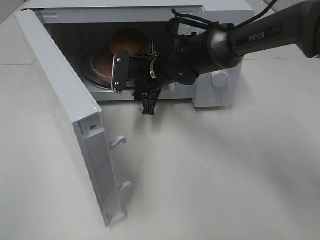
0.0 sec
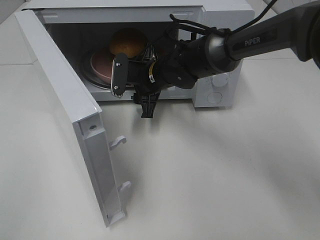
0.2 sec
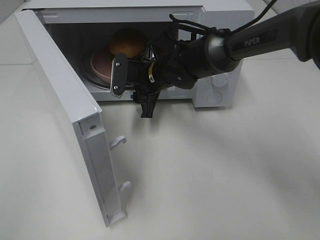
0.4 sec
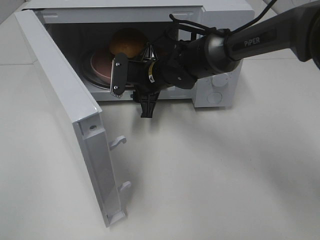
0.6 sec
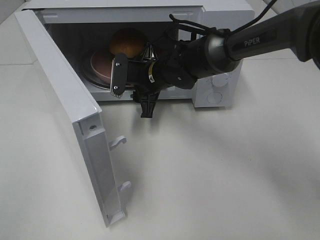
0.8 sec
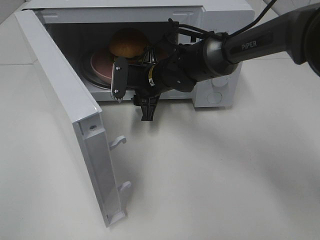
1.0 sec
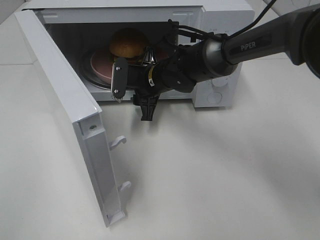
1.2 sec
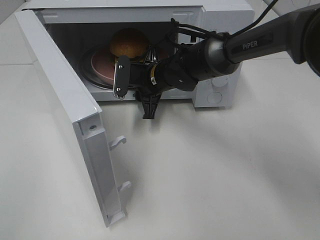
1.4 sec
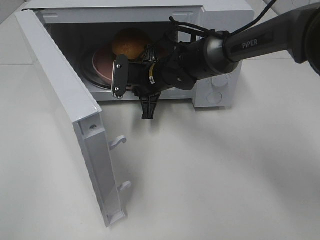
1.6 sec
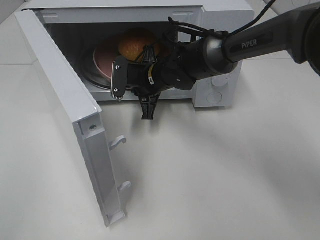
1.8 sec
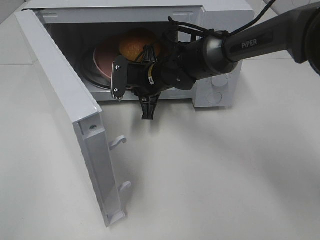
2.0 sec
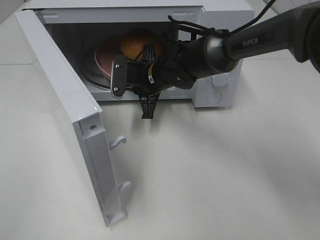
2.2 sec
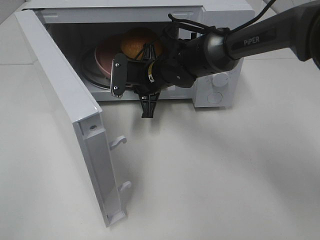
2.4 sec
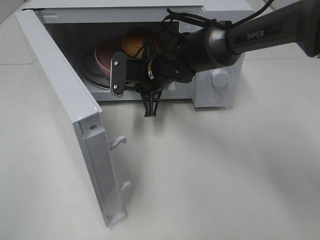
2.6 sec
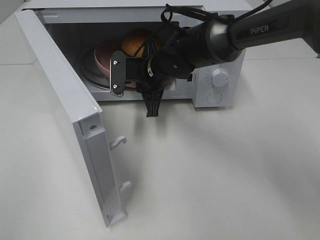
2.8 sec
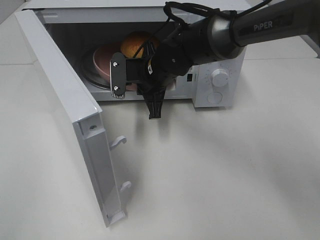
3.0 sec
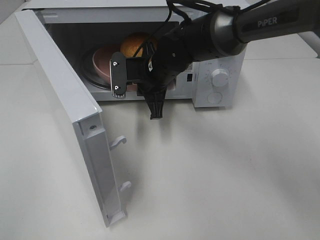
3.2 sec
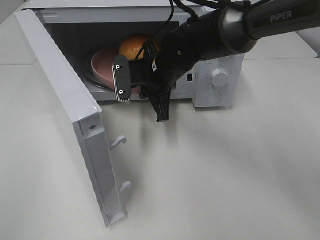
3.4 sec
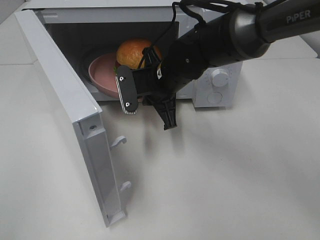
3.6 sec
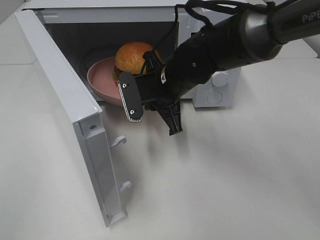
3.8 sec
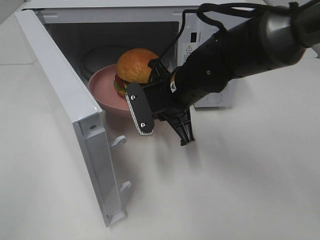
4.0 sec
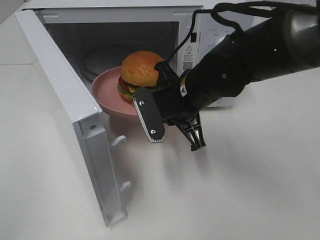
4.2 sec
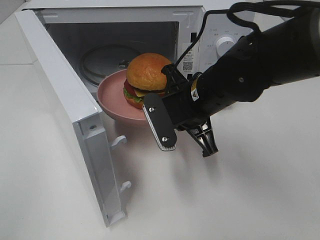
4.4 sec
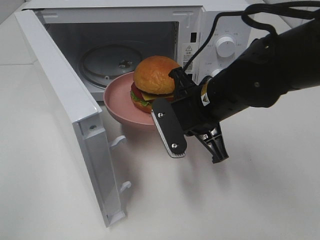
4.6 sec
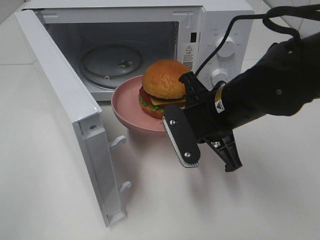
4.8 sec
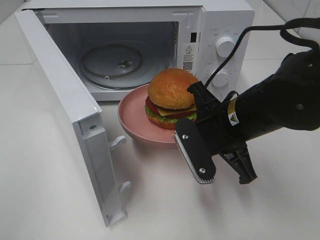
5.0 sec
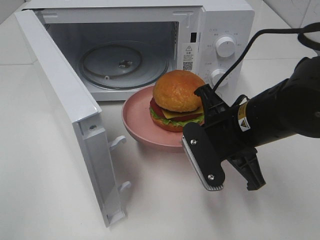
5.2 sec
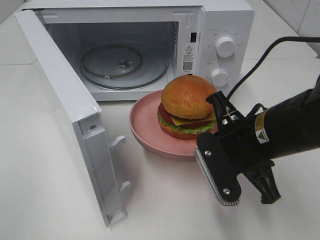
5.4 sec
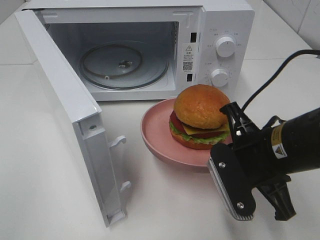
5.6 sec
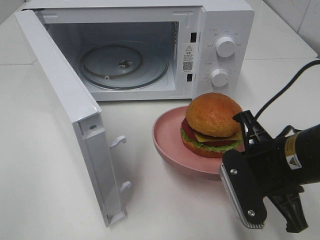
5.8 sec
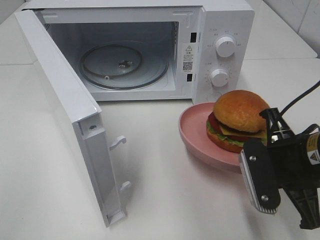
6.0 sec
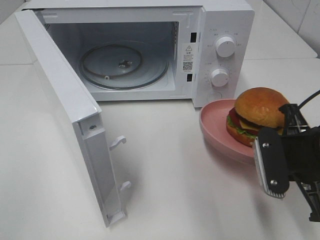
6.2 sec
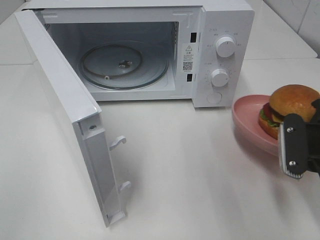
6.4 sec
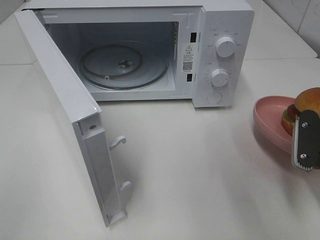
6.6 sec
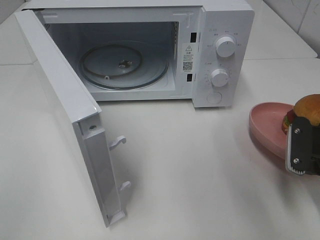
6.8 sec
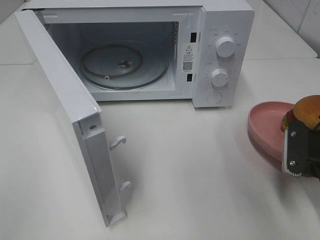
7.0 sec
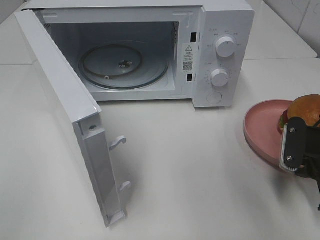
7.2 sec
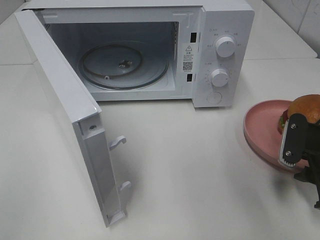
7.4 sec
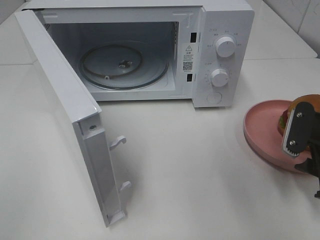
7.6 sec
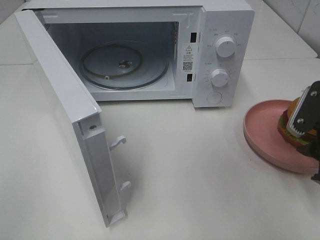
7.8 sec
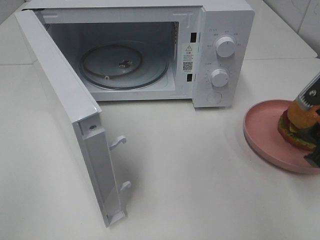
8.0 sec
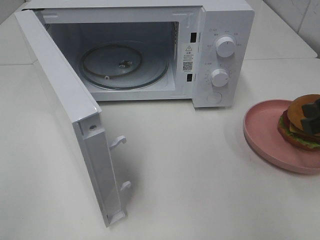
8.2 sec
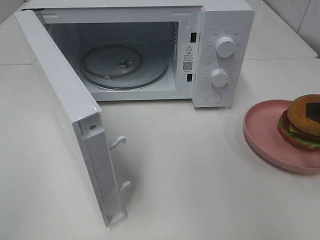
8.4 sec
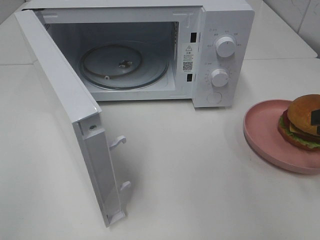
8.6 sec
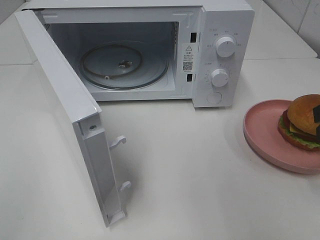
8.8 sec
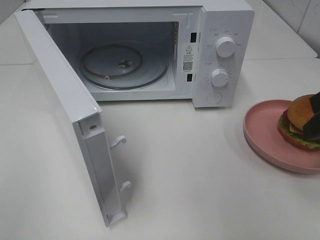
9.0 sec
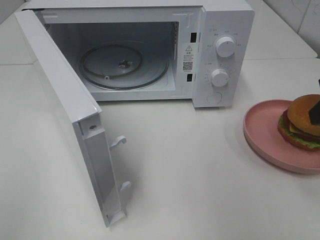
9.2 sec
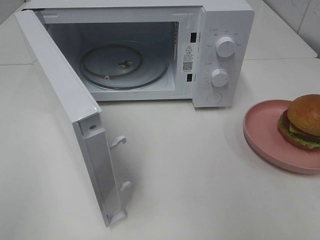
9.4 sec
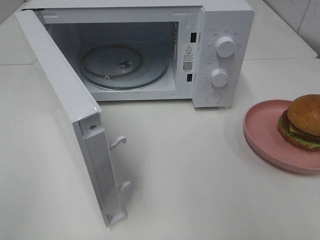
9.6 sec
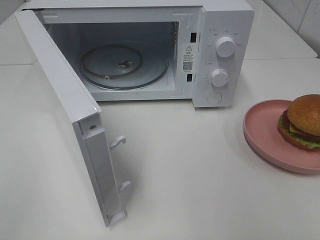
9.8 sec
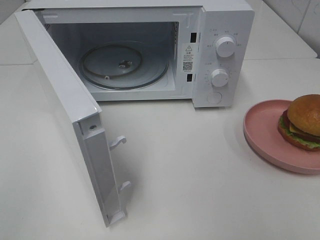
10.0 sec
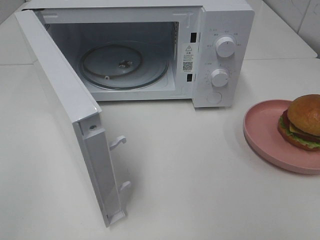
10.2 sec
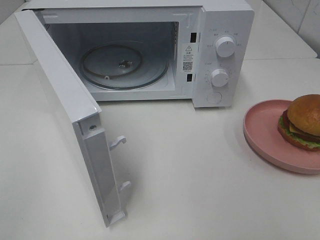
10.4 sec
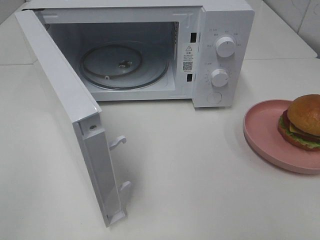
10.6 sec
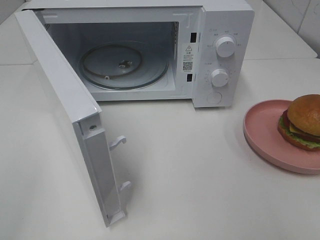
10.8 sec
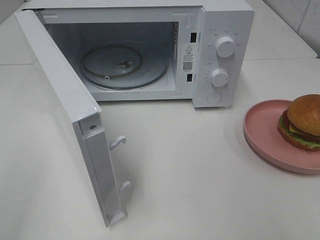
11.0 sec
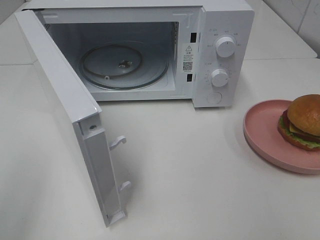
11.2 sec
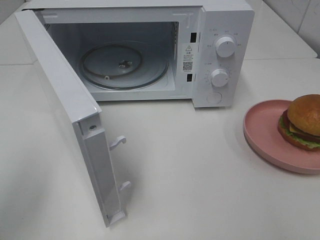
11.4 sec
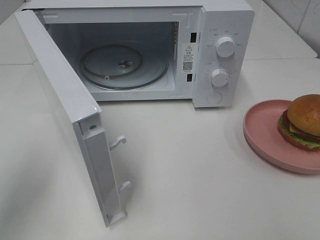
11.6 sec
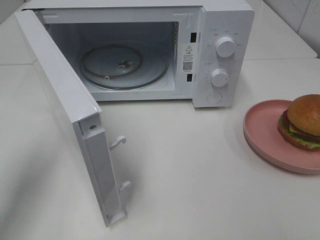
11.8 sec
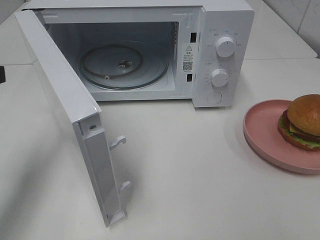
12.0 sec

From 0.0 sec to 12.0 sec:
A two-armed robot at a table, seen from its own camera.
Task of the whole recording: Heat the burger.
Step, from 1.8 sec to 7.2 sec: Right hand: place the plate on the table.
From 0.0 sec to 1.6 sec: The right gripper closes up.
From 1.6 sec to 3.0 sec: The grippers move only a little.
From 3.0 sec to 4.4 sec: The right gripper shifts some 15 cm backward and to the right.
From 4.4 sec to 6.0 sec: The right gripper is displaced to the right and backward by about 15 cm.
From 6.0 sec to 7.6 sec: The right gripper moves to the right, approximately 10 cm, and opens its fingers.
From 7.6 sec to 9.0 sec: The right gripper travels upward by roughly 15 cm.
From 9.0 sec to 10.4 sec: The right gripper travels backward by approximately 20 cm.
From 10.4 sec to 12.0 sec: The left gripper moves forward, about 25 cm.

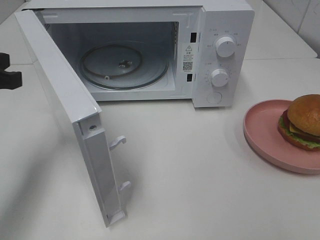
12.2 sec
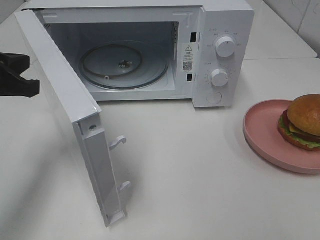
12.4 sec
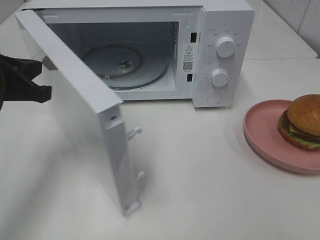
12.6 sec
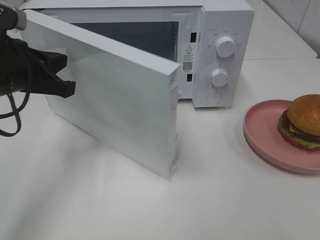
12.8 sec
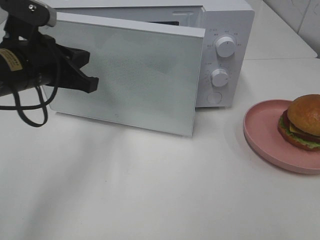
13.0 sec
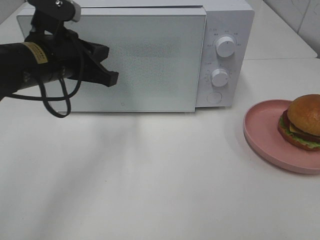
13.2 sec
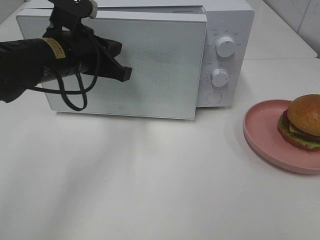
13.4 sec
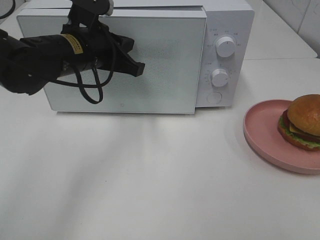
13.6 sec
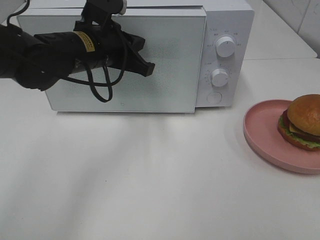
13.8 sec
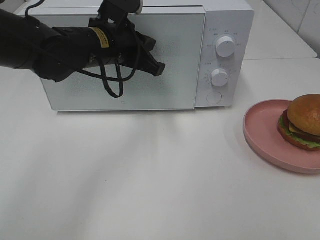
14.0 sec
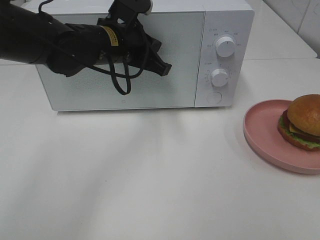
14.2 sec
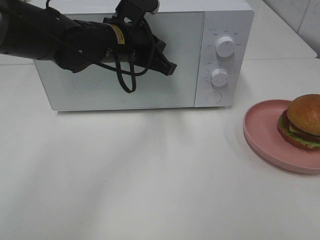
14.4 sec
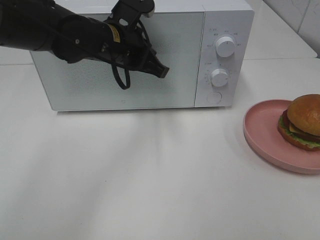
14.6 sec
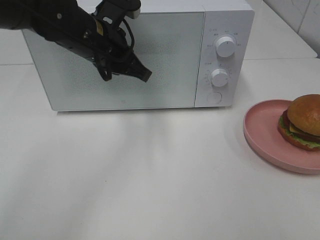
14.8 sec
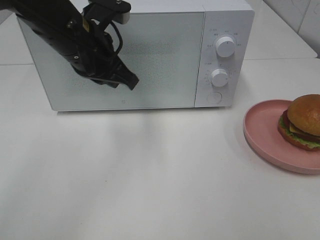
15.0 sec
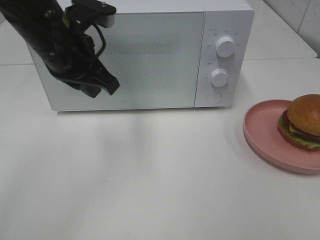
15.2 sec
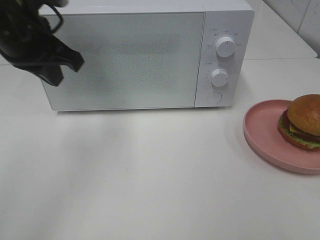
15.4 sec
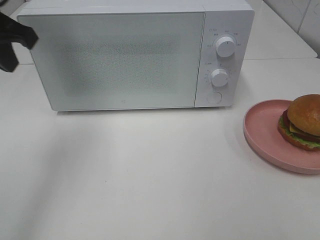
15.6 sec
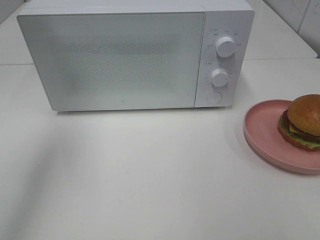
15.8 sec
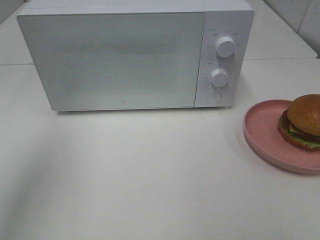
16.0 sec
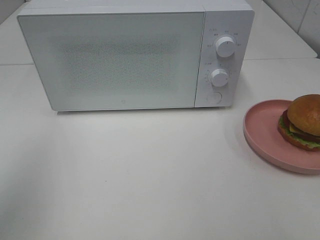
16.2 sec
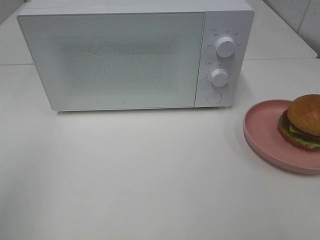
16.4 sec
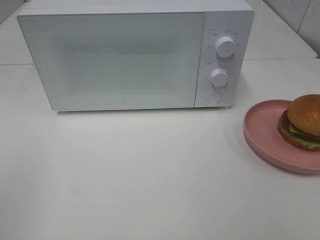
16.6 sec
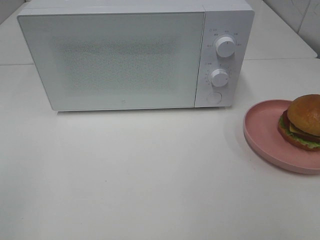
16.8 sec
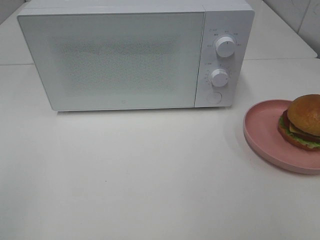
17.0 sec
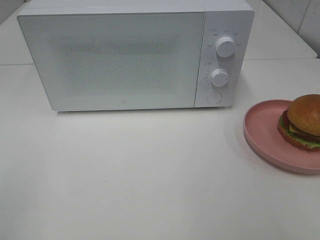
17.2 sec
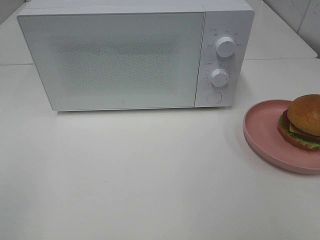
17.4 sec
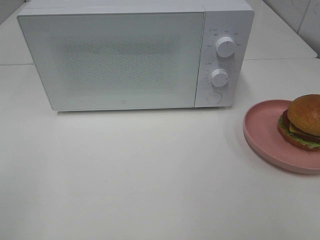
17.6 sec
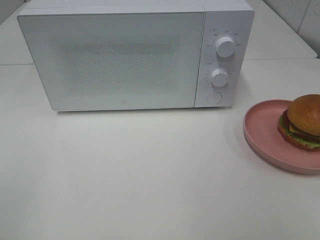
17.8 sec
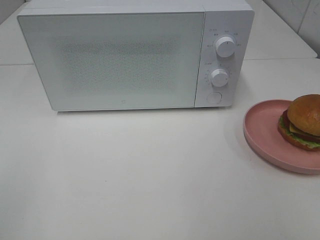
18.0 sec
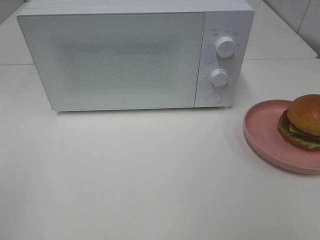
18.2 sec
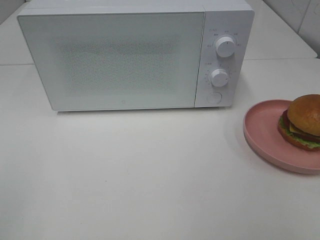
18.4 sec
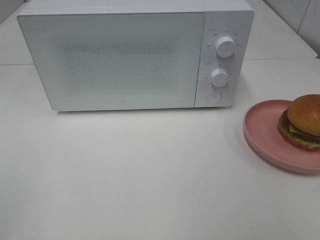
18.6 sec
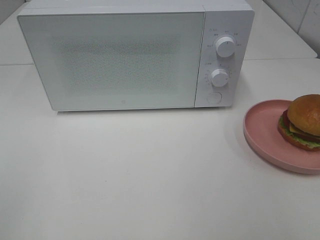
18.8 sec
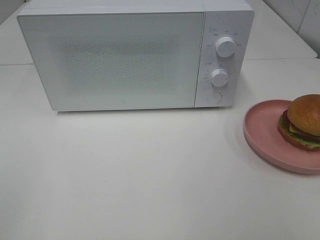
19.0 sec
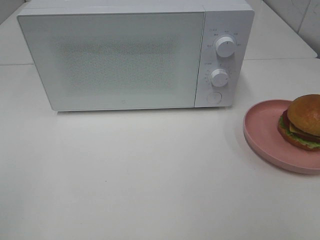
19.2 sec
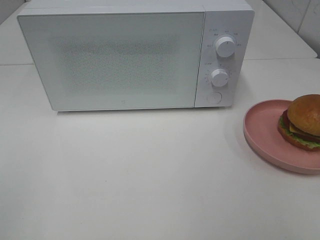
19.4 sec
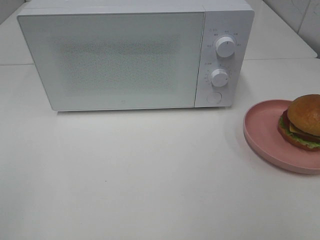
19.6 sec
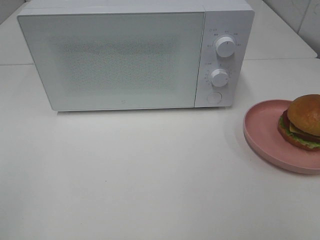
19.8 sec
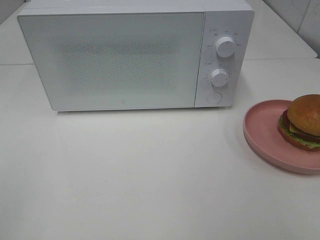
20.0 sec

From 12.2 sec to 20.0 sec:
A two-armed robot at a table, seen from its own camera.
Task of the whole recording: Heat the burger.
Step, from 12.2 sec to 14.6 sec: Left hand: close the microwave door.
From 12.2 sec to 13.8 sec: The left gripper goes roughly 20 cm to the right and forward.
From 13.8 sec to 15.4 sec: The left gripper travels to the left and upward by some 10 cm.
From 15.4 sec to 16.8 sec: The left gripper shifts about 35 cm backward and to the left.
From 18.4 sec to 20.0 sec: The two grippers keep their place.

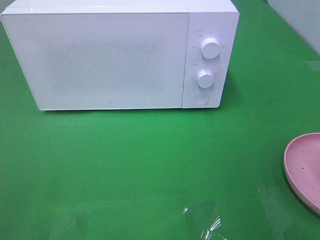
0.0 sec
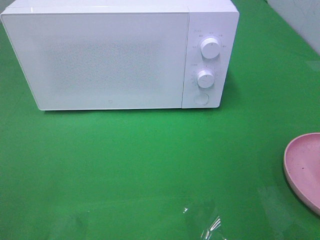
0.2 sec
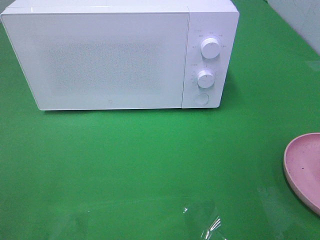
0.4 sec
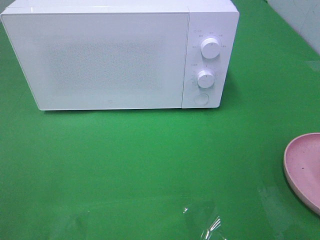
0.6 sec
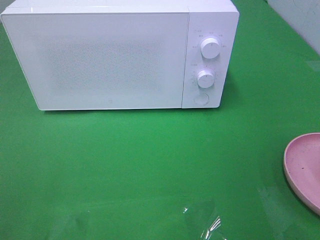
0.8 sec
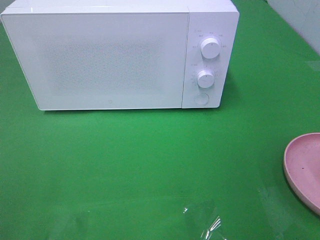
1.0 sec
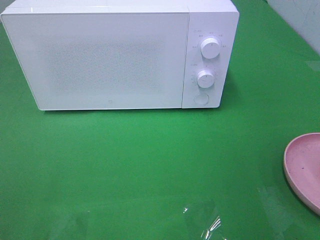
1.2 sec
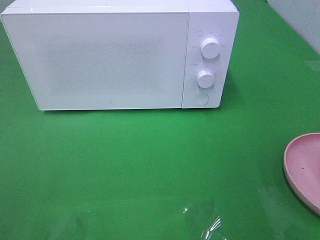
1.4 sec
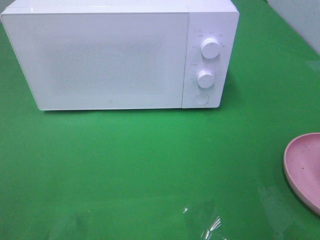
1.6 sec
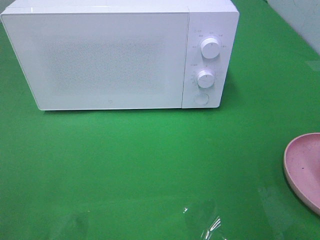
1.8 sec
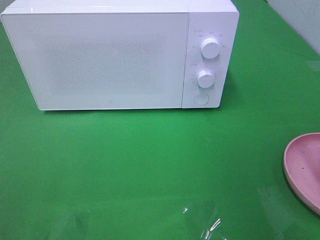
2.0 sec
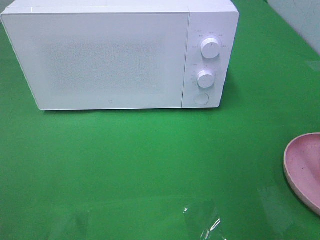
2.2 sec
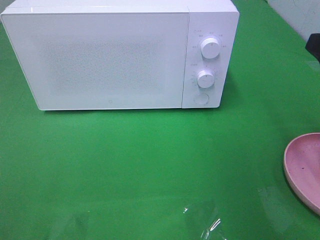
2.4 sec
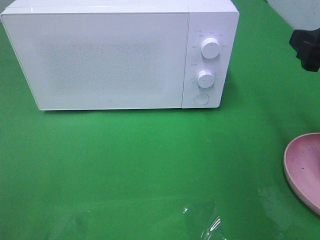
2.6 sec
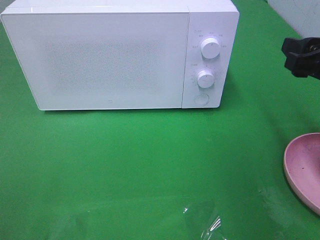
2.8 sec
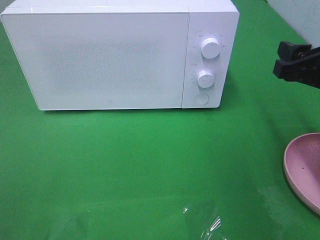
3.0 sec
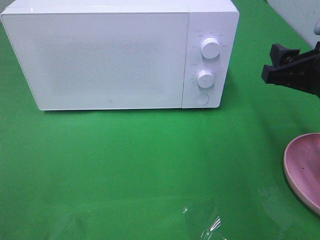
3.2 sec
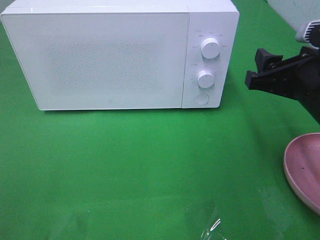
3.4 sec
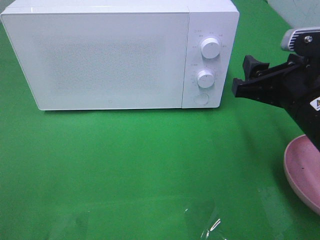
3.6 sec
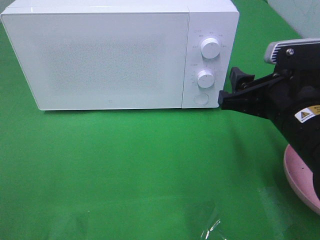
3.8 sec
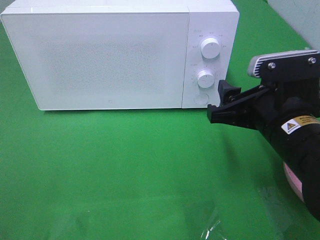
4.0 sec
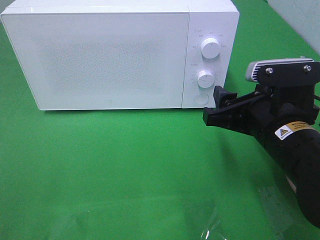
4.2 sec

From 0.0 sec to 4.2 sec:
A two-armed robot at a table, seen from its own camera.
Task of the whole recording: Heat the burger.
From 1.4 sec to 2.8 sec: The right gripper goes roughly 20 cm forward.
From 2.8 sec to 4.2 sec: The right gripper is displaced to the left and downward by roughly 10 cm.
